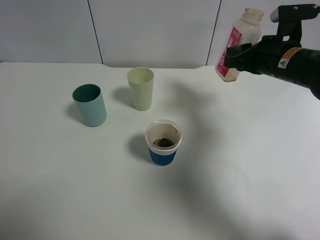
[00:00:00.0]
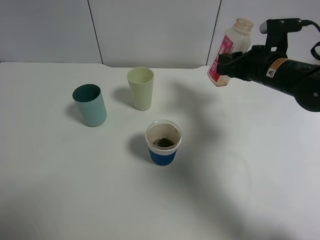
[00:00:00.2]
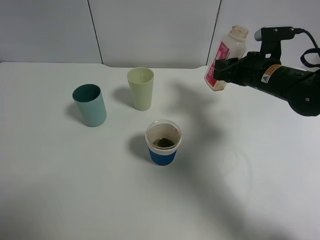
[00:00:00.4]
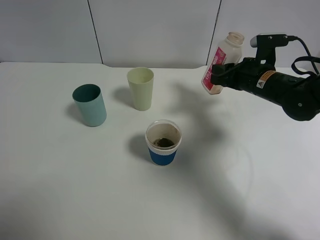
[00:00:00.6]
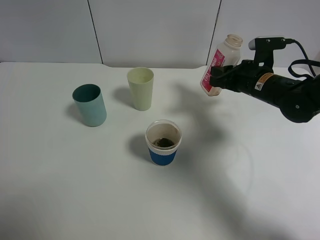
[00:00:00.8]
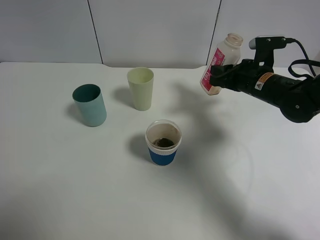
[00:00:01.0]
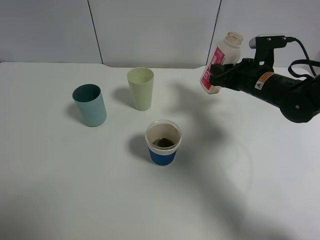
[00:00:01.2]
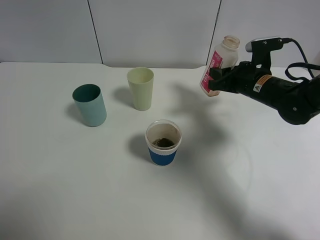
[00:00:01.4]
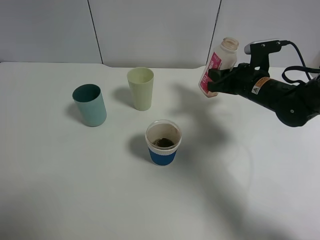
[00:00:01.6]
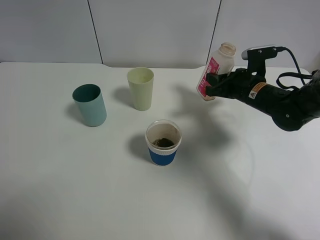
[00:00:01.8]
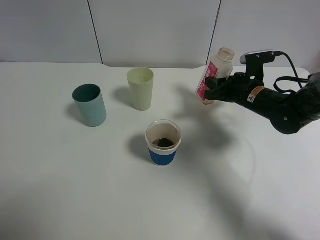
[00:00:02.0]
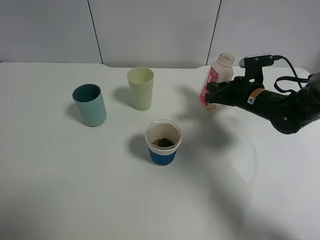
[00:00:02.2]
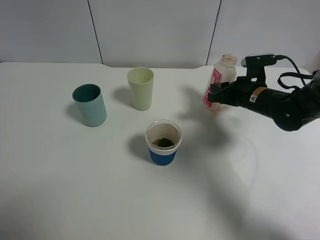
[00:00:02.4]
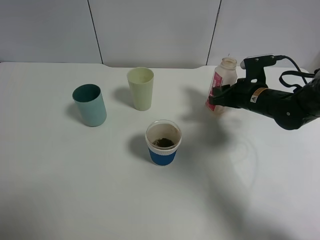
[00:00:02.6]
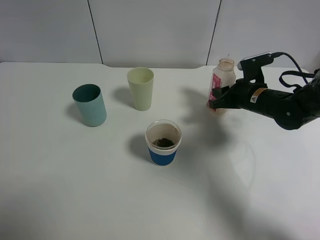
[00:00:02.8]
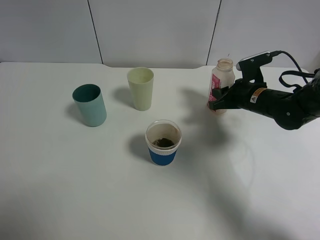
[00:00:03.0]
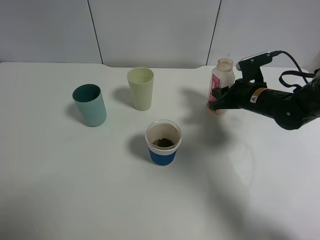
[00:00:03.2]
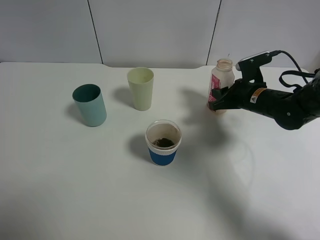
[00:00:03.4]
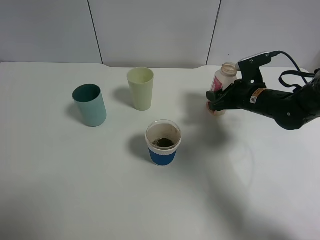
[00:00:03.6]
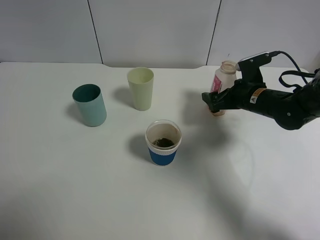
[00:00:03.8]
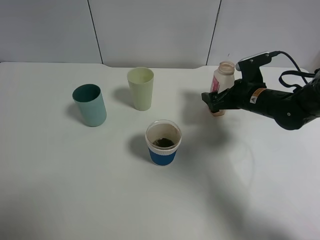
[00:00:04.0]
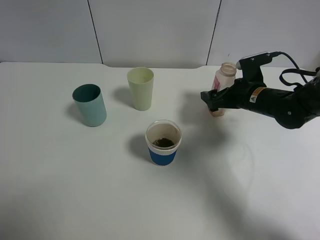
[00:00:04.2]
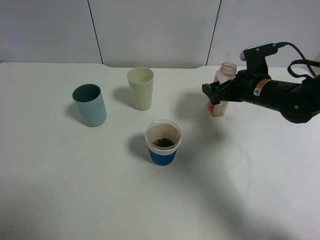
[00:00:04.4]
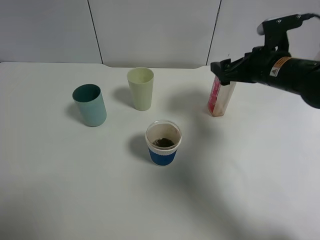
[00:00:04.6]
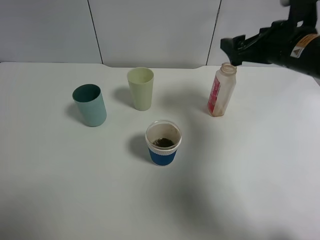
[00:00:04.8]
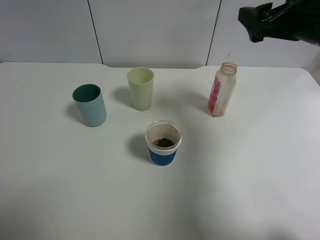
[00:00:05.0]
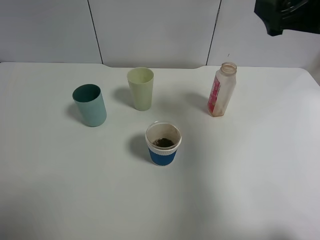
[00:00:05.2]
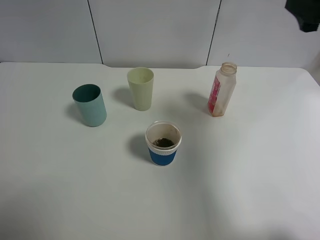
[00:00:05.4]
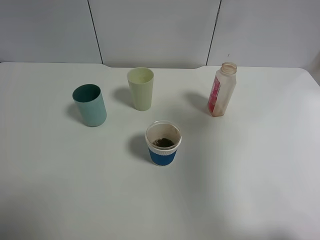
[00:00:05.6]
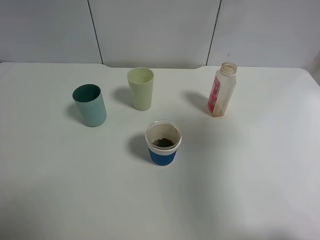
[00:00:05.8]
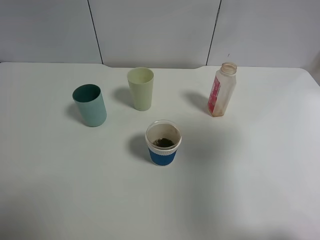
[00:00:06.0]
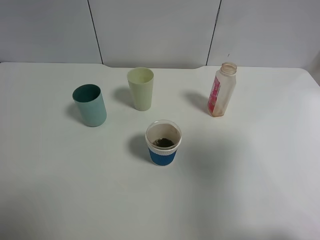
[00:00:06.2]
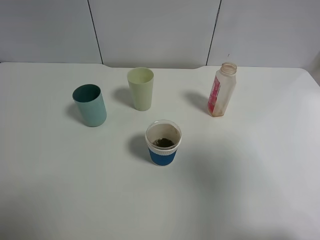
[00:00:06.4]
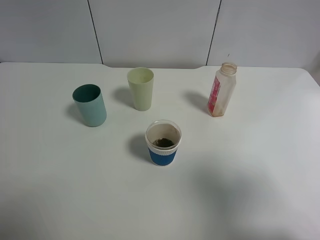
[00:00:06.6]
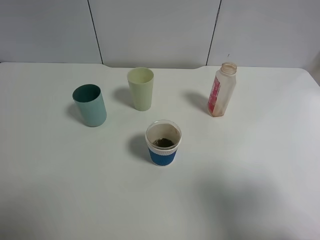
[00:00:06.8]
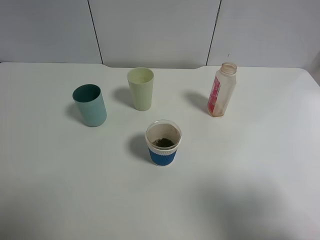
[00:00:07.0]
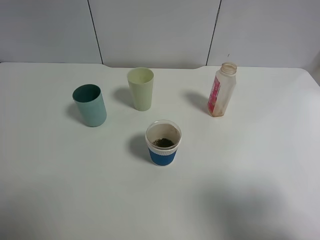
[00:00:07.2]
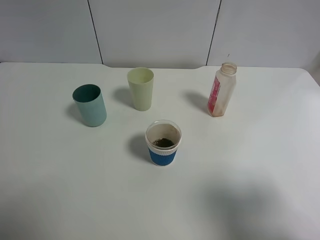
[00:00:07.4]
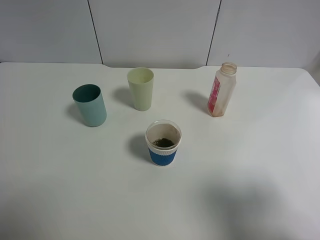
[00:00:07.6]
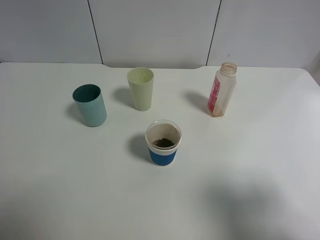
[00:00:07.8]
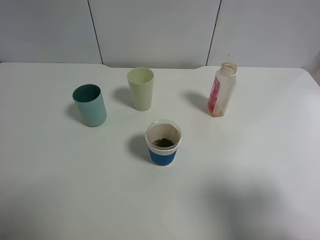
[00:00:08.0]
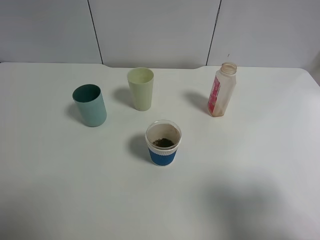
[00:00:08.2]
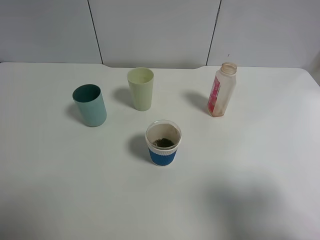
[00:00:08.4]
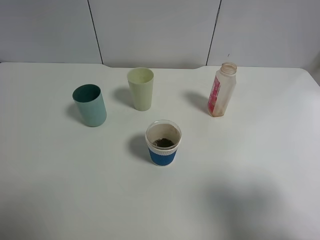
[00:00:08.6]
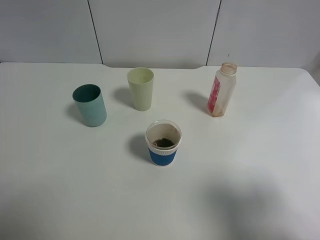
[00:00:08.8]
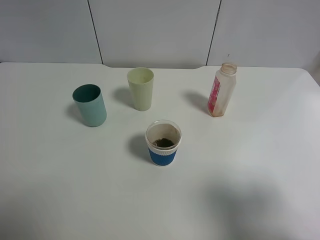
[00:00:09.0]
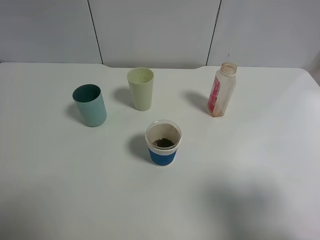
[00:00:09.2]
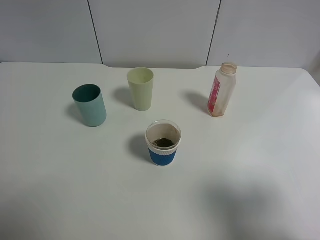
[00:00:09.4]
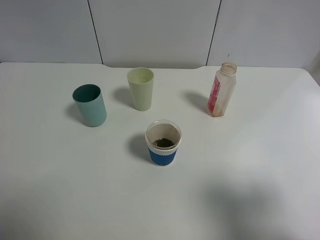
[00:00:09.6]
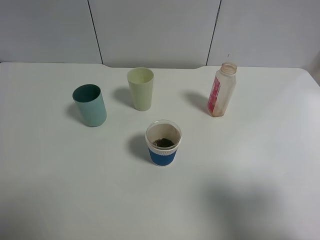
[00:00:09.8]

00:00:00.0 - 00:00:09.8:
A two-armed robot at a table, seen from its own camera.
Task of the whole recording: use a gripper to hold the bottle of the drink and pour it into a random cup.
Step, 00:00:00.0 - 00:00:04.2: Place the cranberry juice bottle on the table with the right gripper.
00:00:00.0 - 00:00:01.4: The right gripper moves downward, about 5 cm.
00:00:01.4 - 00:00:02.8: The grippers move only a little.
00:00:02.8 - 00:00:04.2: The right gripper opens.
00:00:04.2 - 00:00:05.6: The right gripper goes approximately 30 cm upward and backward.
00:00:05.6 - 00:00:07.0: The right gripper moves backward, approximately 20 cm.
00:00:08.4 - 00:00:09.8: Both grippers stay about where they are.

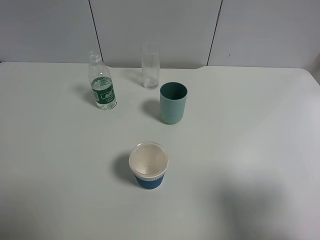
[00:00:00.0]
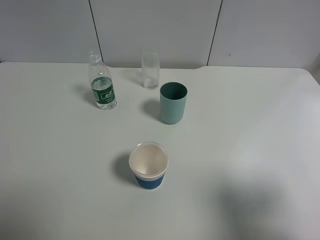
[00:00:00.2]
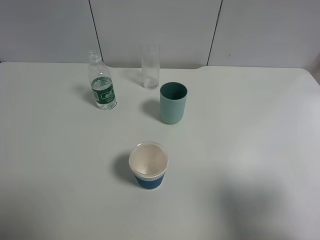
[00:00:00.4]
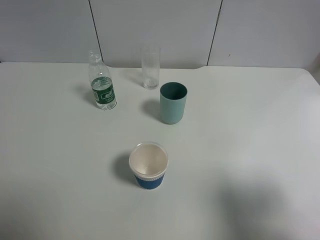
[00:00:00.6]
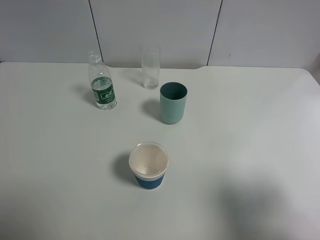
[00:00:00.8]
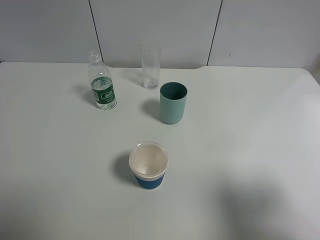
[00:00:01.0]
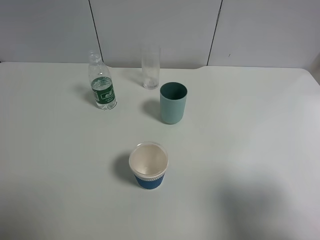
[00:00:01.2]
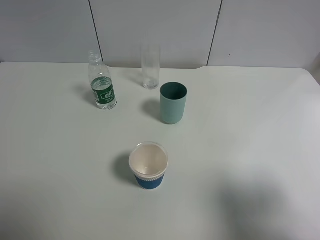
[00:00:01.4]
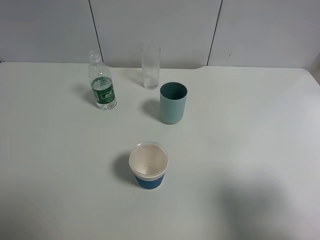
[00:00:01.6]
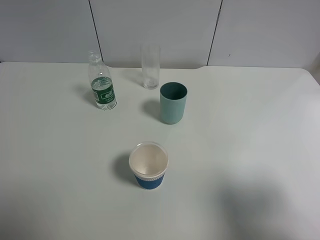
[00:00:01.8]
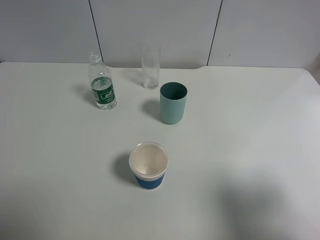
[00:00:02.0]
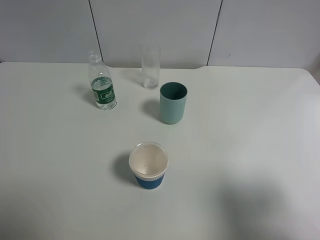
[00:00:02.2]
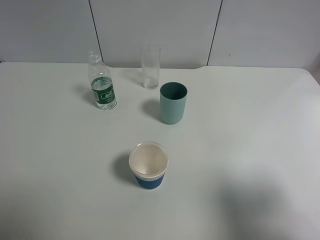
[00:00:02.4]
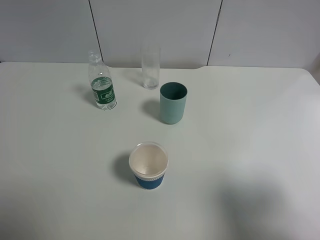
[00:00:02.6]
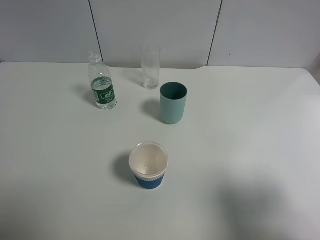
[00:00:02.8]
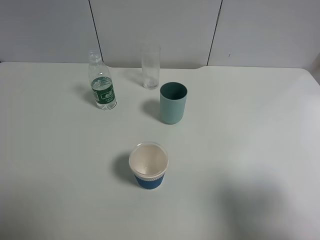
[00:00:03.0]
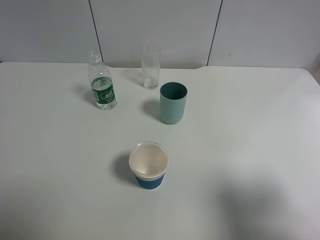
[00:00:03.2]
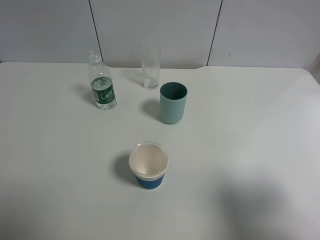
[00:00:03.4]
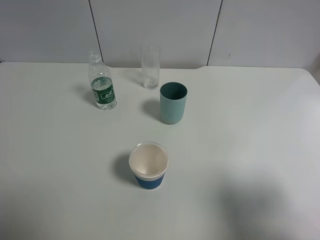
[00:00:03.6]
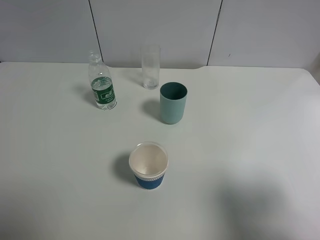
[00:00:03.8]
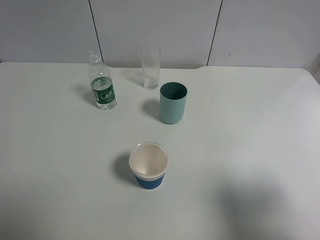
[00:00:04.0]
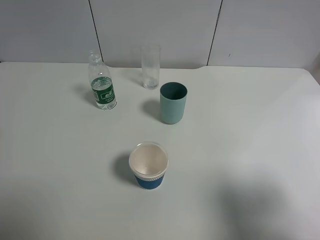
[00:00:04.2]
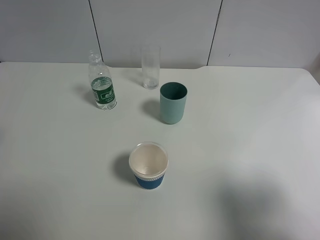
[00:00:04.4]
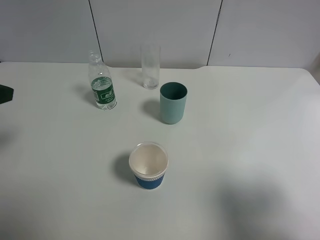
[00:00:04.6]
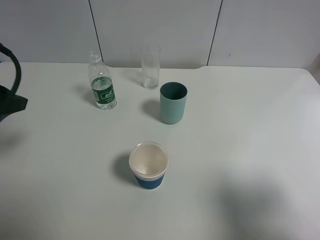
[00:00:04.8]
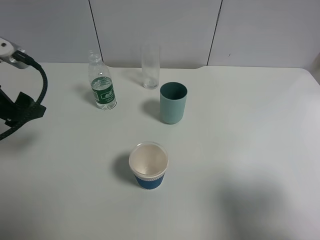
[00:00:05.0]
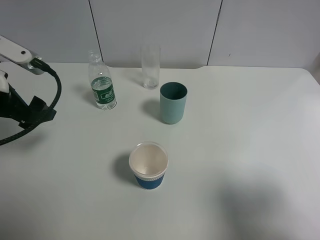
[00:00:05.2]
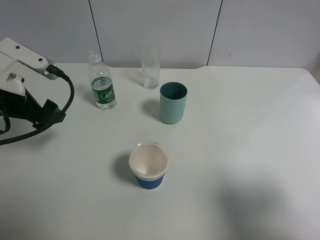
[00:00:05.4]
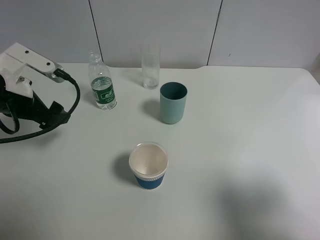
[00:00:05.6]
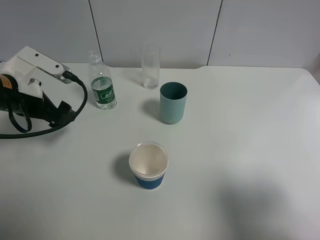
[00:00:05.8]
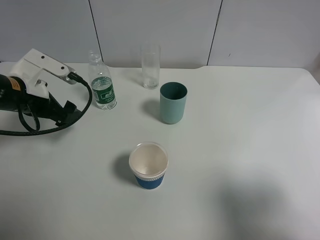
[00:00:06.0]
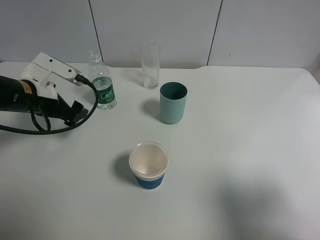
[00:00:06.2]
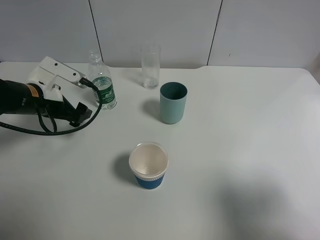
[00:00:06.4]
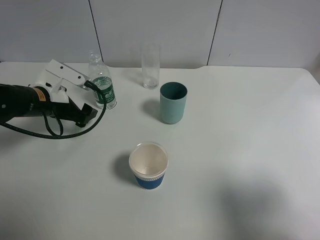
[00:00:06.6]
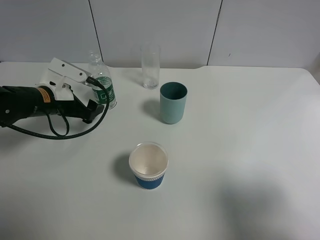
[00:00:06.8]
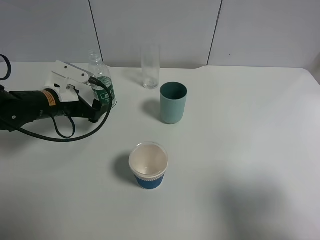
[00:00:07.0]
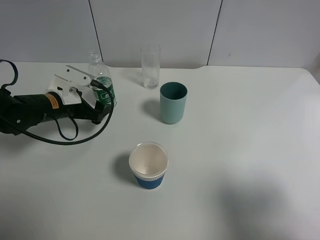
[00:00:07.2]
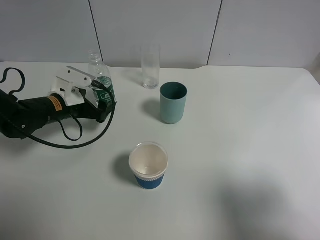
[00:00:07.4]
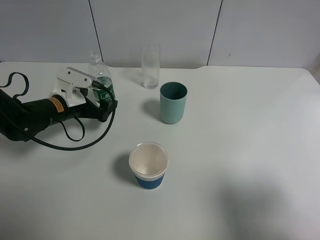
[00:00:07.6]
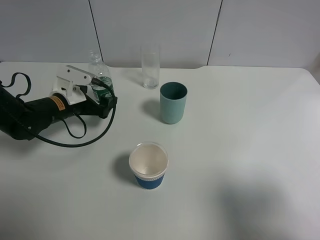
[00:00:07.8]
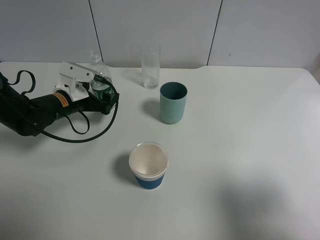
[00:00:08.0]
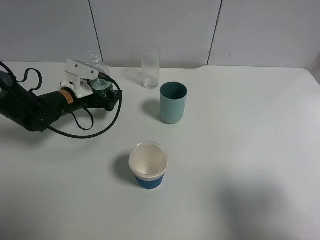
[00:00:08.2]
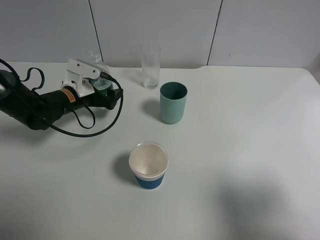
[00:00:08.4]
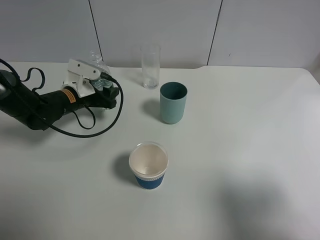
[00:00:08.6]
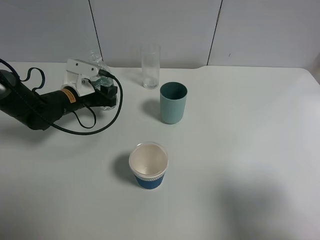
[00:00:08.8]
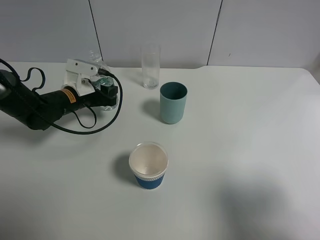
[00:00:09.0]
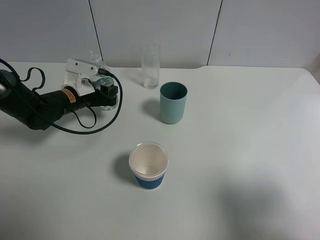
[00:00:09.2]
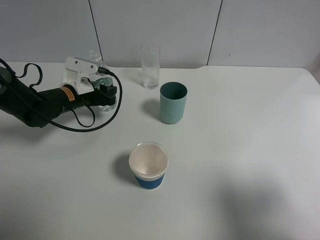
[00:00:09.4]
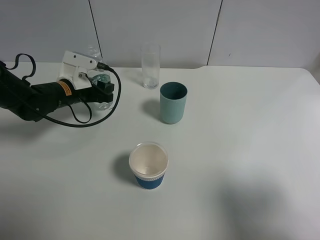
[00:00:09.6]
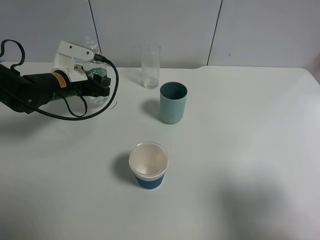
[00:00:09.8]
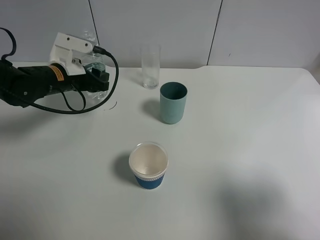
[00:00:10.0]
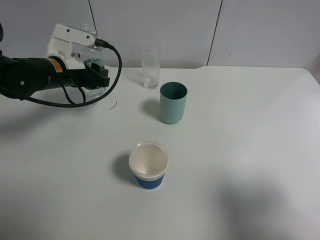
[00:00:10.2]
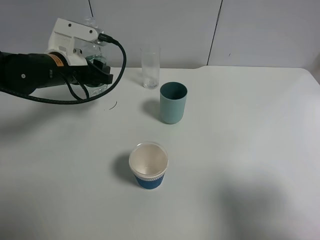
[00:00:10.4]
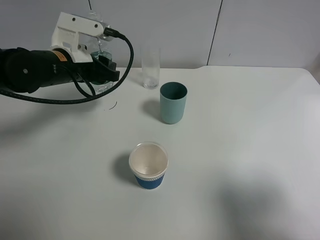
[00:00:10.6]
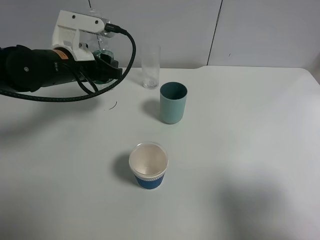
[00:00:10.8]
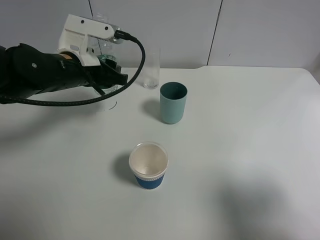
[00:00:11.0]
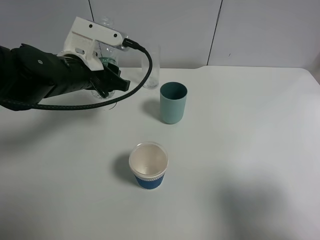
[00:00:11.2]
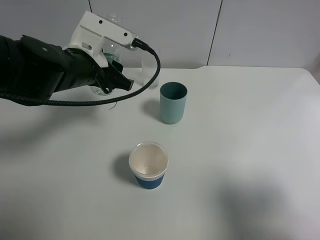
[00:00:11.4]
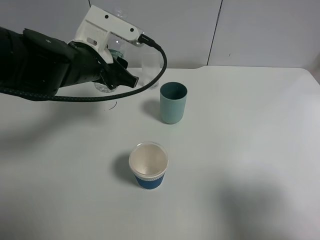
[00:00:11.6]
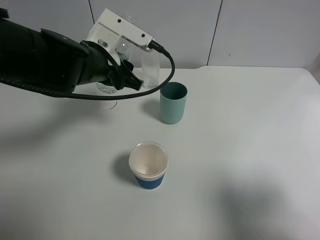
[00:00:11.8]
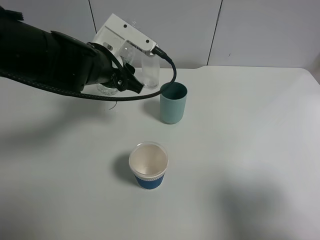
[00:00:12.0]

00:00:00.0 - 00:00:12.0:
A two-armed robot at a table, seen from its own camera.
Task of the whole recording: use a gripper to hold the bottle of the drink and pour it into a random cup.
Step, 00:00:00.0 - 00:00:09.0: Grasp the mineral water bottle with the left gripper.
00:00:00.0 - 00:00:03.0: Both grippers stay about where they are.
00:00:04.4 - 00:00:06.0: The left gripper shifts about 20 cm downward, forward and to the right.
00:00:06.0 - 00:00:07.6: The left gripper shifts about 10 cm downward.
00:00:07.6 - 00:00:09.0: The left gripper closes.
00:00:09.0 - 00:00:10.4: The left gripper goes approximately 10 cm upward.
00:00:10.4 - 00:00:12.0: The left gripper is displaced to the right by approximately 10 cm.
